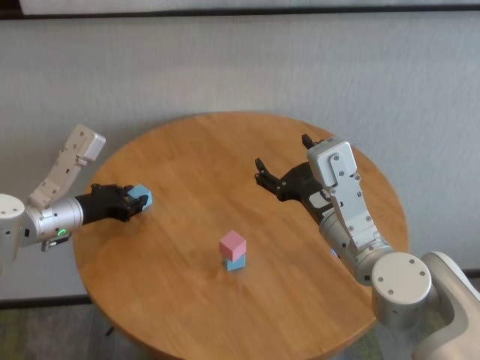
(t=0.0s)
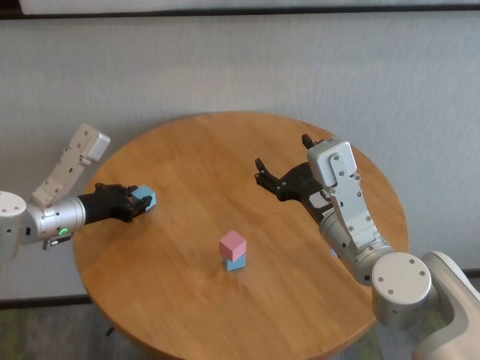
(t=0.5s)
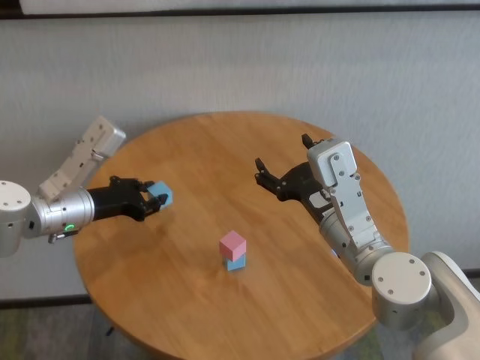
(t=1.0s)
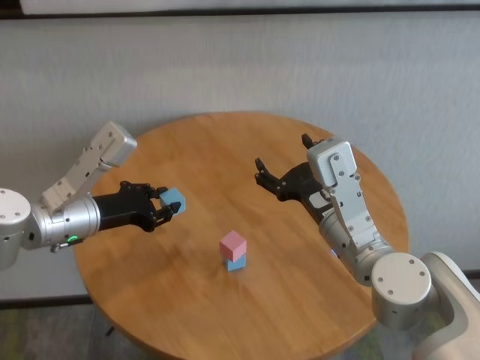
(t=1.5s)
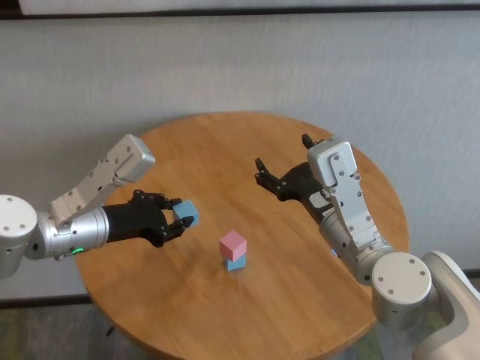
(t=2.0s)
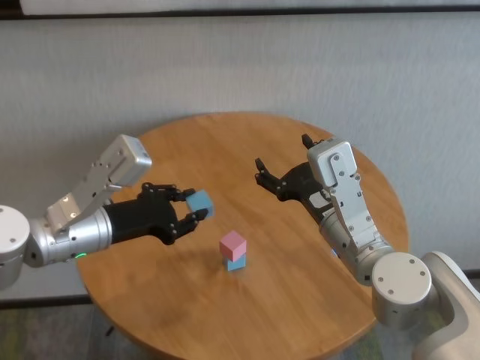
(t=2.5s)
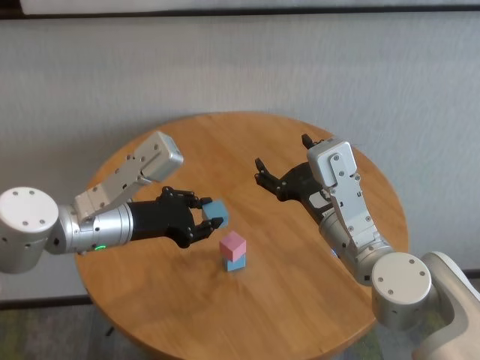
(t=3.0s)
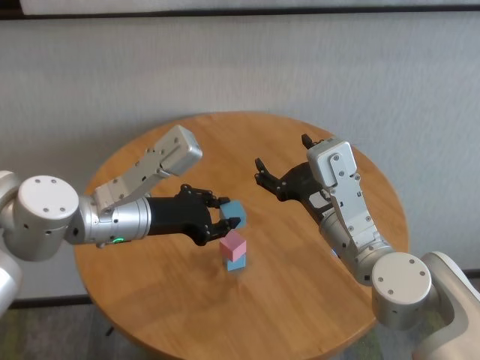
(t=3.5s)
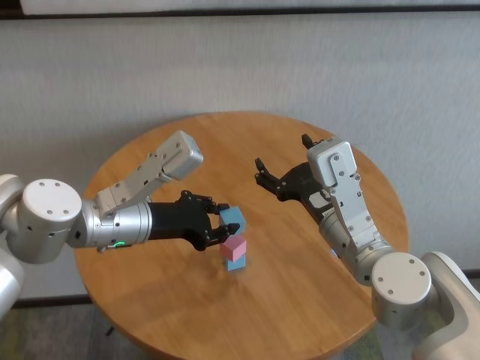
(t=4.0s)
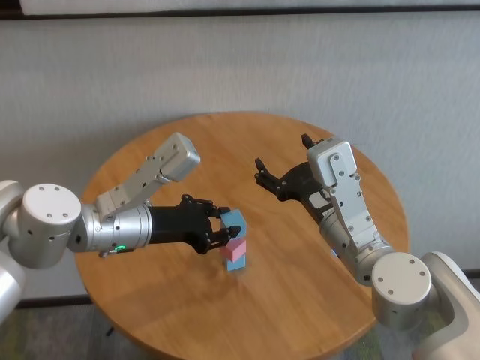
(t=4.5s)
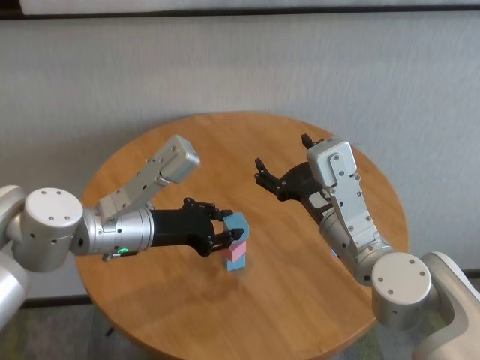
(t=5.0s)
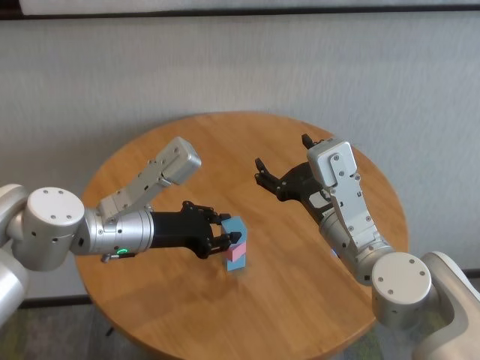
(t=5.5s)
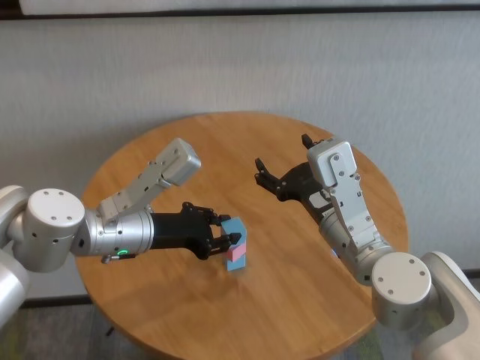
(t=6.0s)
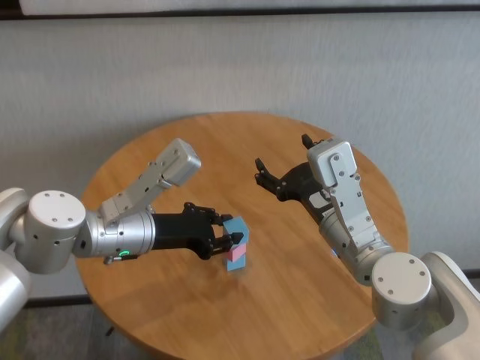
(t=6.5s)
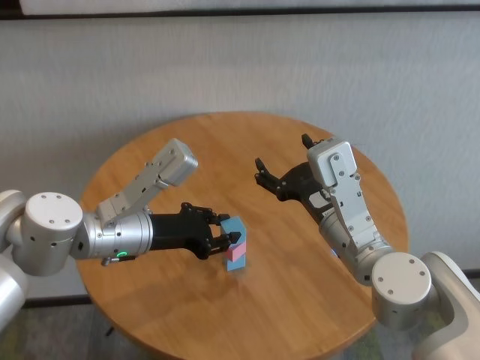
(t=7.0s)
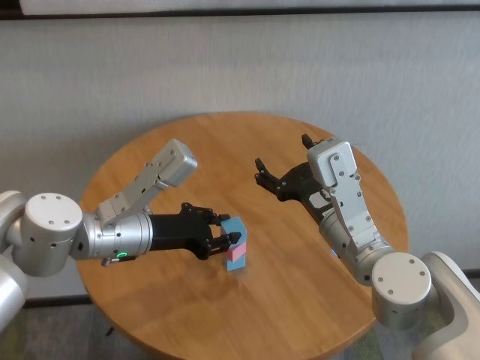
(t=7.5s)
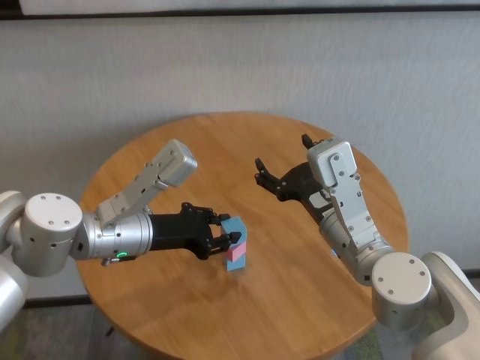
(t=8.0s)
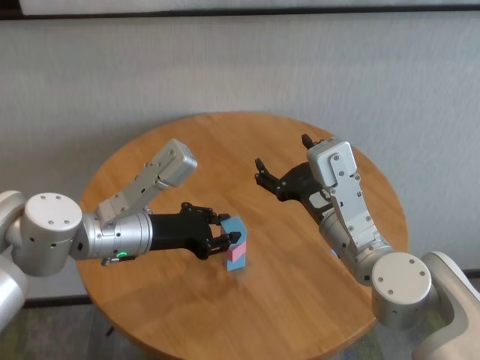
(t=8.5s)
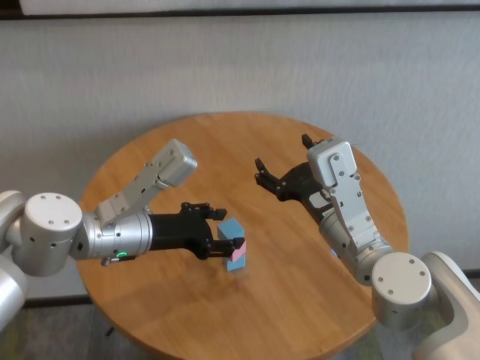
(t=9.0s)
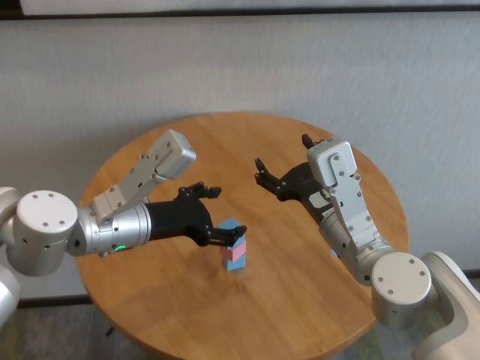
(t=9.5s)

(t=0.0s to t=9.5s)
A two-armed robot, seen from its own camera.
Task of the whole recording: stack building blocks on the table.
Step, t=0.5s - t=9.0s: Place the blue building block on the pink building blocks with left gripper.

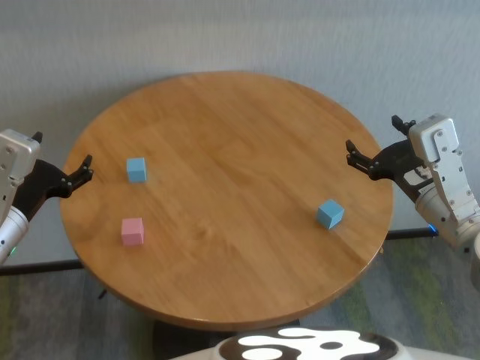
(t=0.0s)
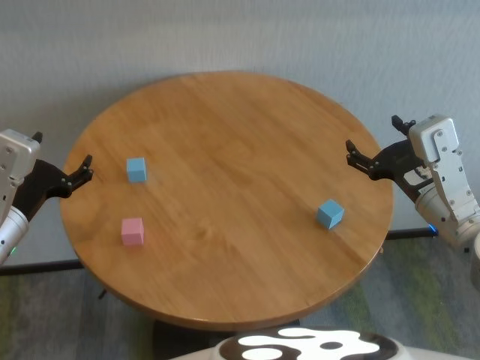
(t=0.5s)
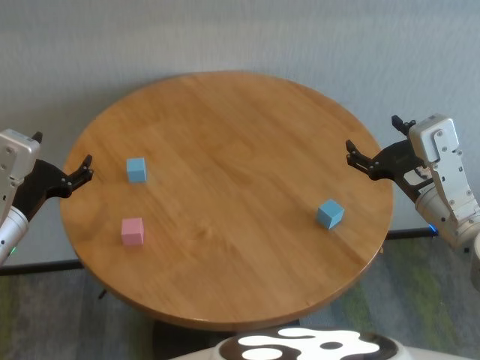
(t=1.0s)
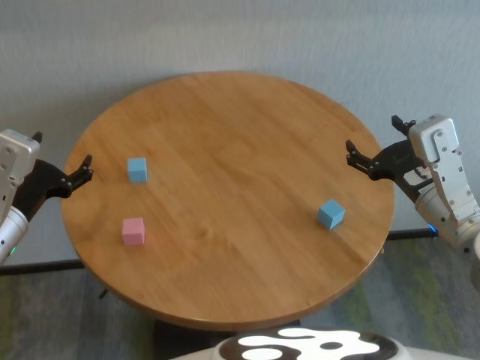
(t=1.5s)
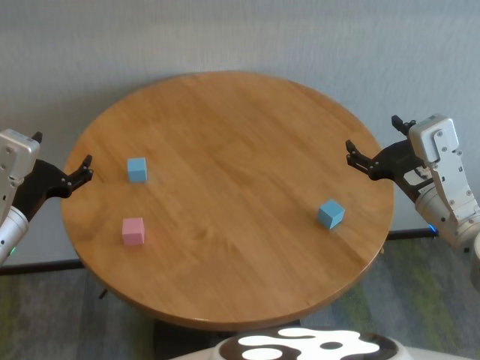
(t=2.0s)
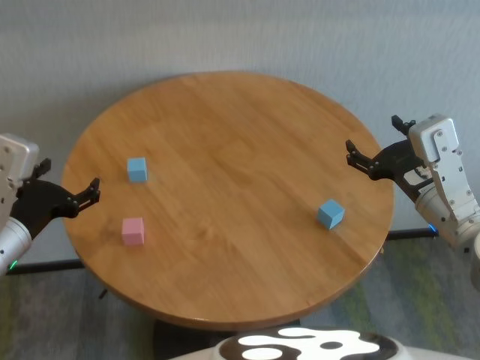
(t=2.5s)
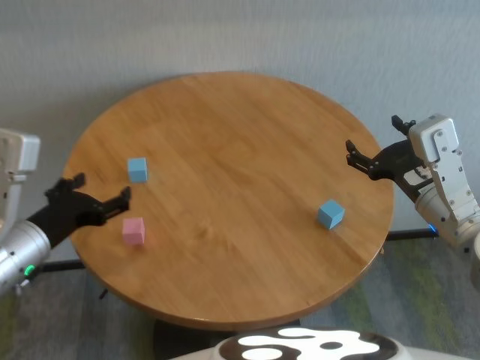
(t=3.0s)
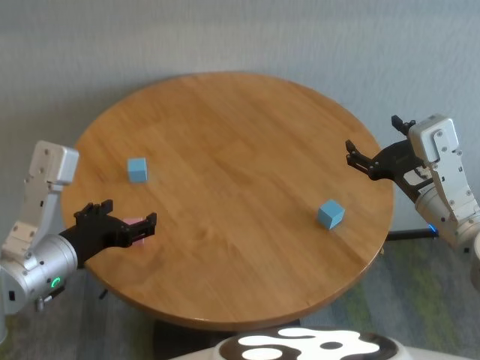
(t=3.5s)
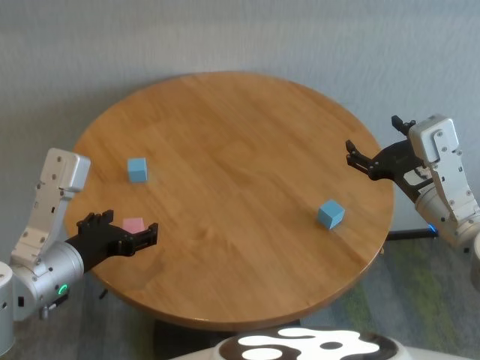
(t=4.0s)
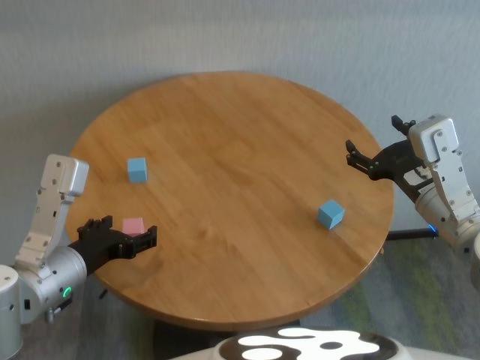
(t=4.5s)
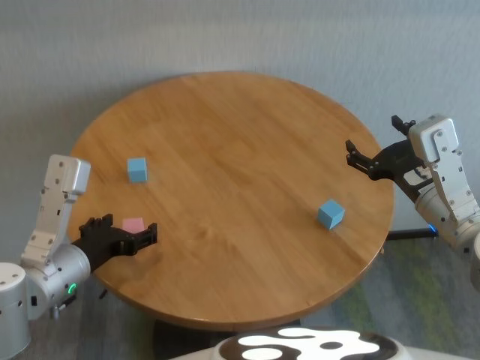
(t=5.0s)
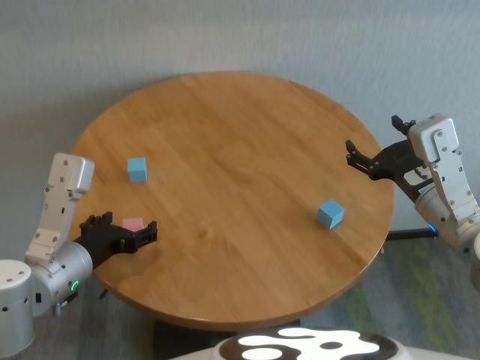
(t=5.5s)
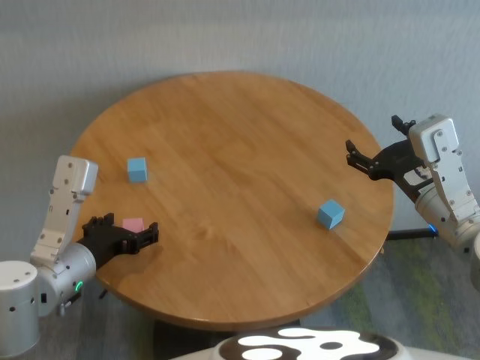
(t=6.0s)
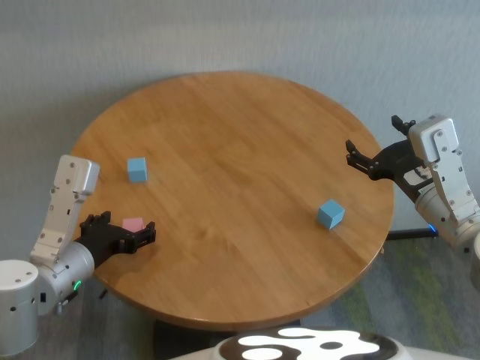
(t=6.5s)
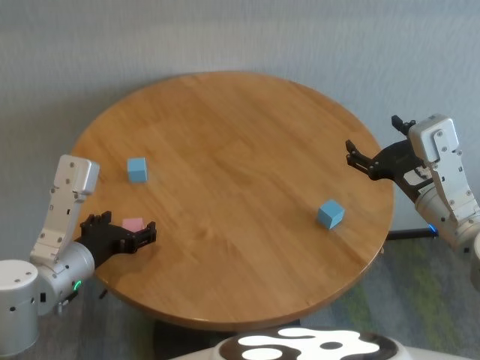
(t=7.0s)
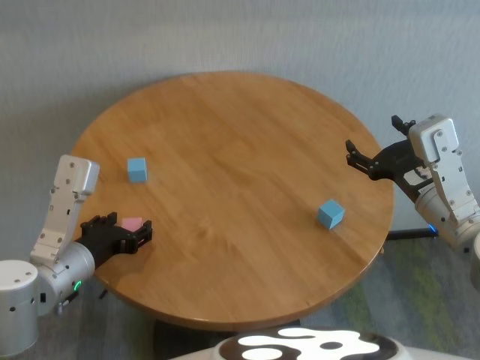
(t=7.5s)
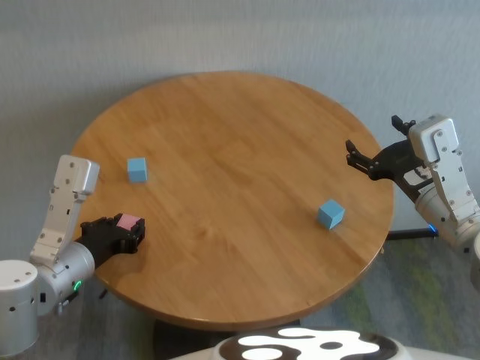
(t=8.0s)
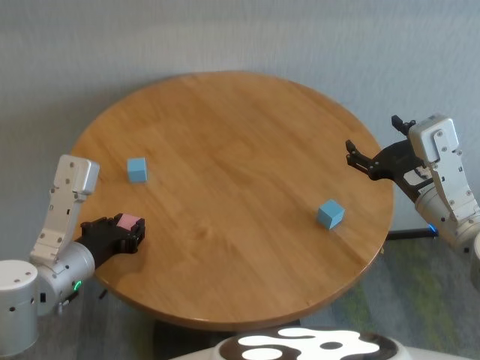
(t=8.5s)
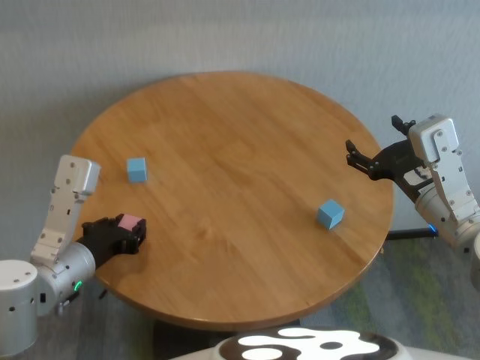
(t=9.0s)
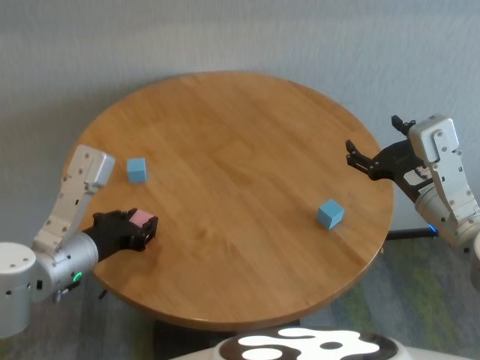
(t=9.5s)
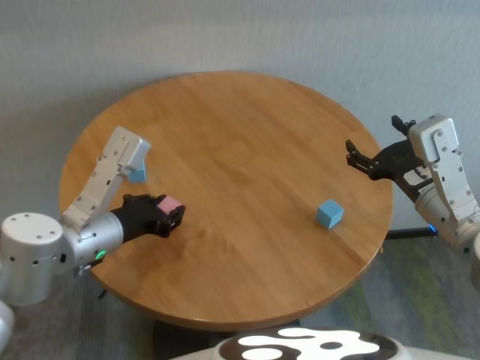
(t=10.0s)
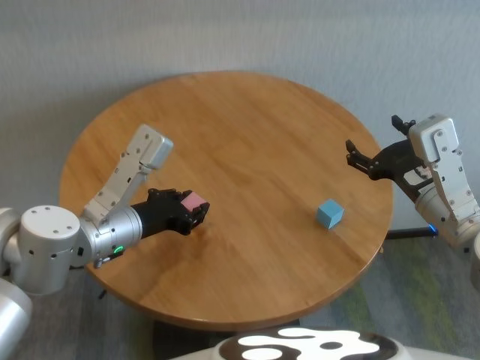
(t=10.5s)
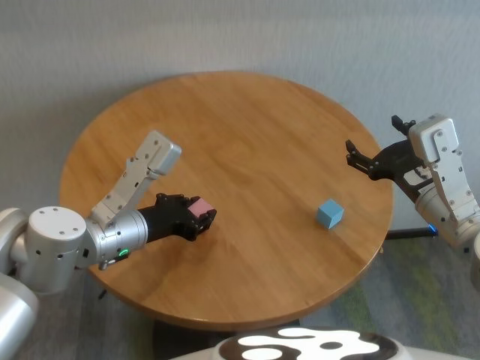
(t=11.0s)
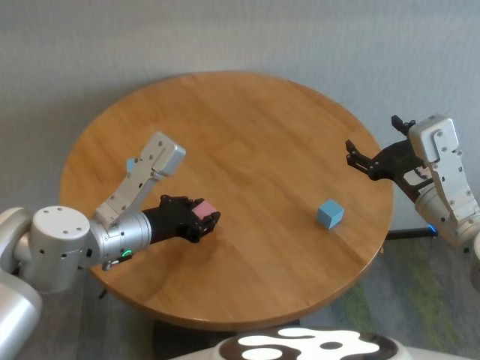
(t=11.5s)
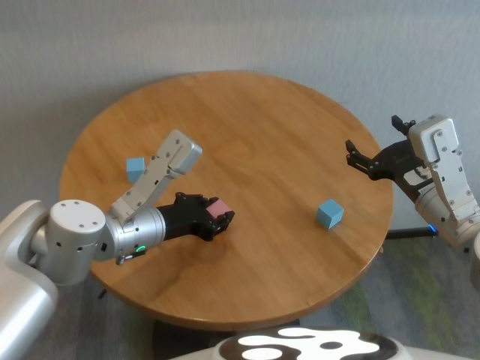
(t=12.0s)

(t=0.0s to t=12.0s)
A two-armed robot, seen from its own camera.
Task of the whole recording: stack building blocks on the table.
Step, t=0.0s - t=7.5s: Grasp the pink building block with left gripper.

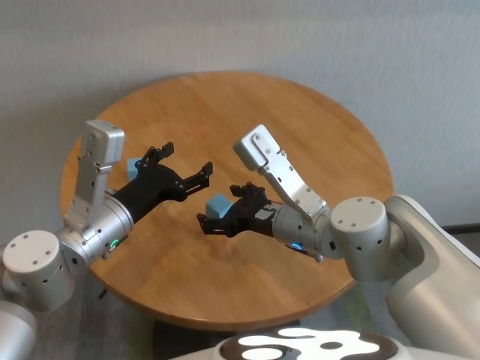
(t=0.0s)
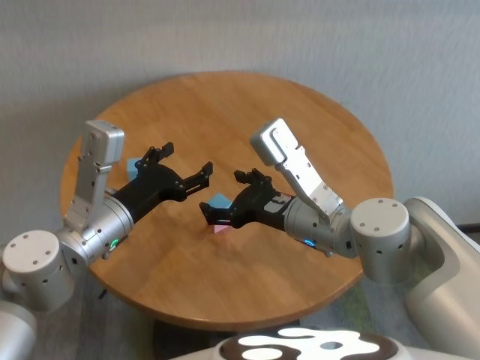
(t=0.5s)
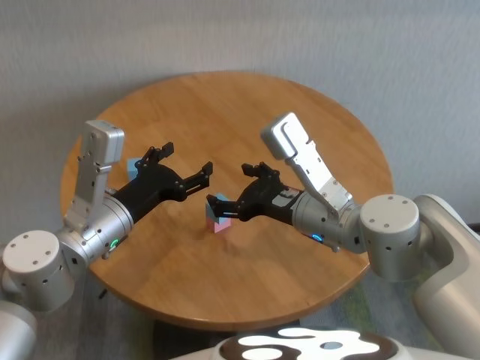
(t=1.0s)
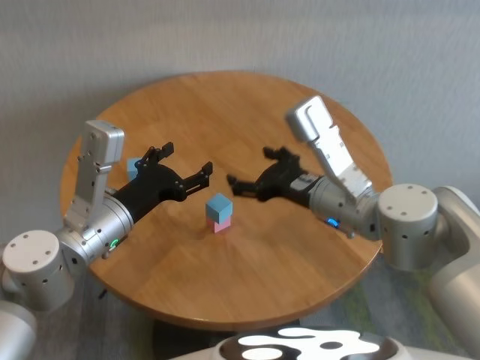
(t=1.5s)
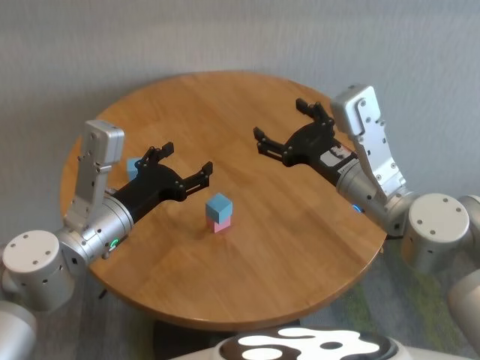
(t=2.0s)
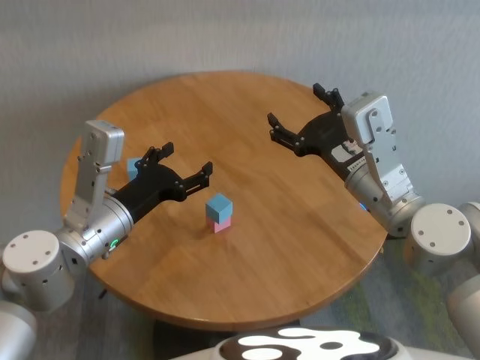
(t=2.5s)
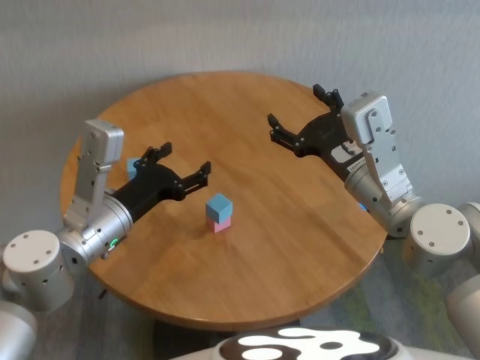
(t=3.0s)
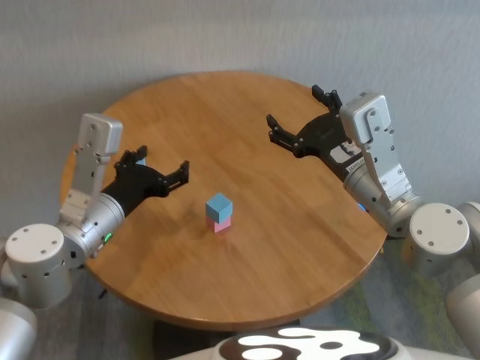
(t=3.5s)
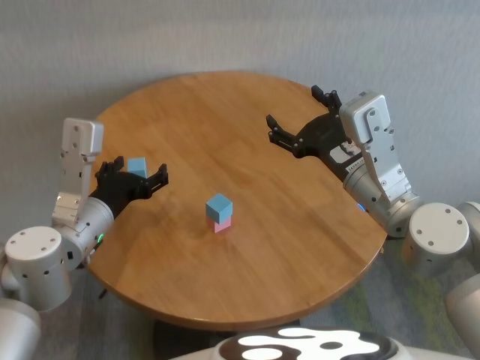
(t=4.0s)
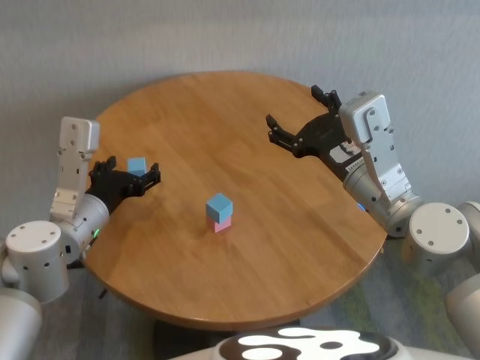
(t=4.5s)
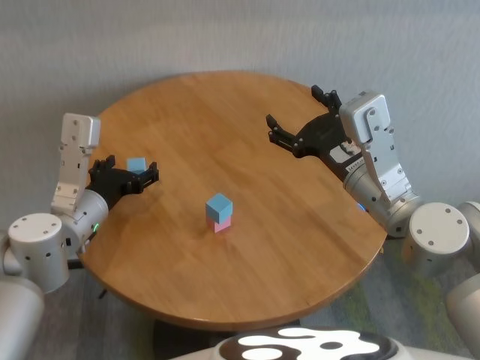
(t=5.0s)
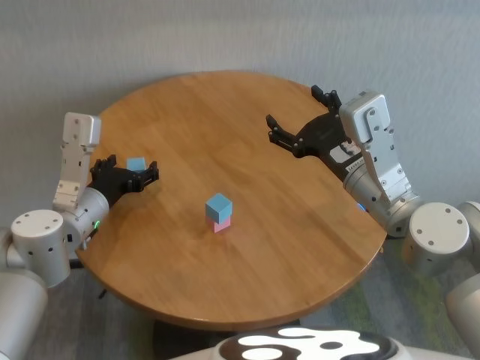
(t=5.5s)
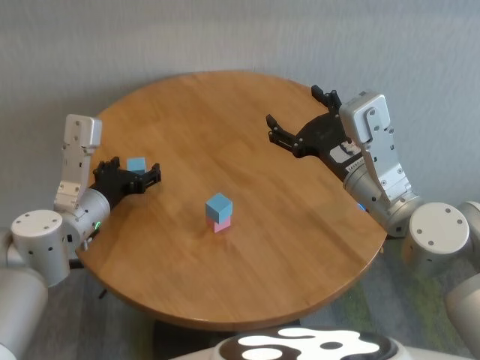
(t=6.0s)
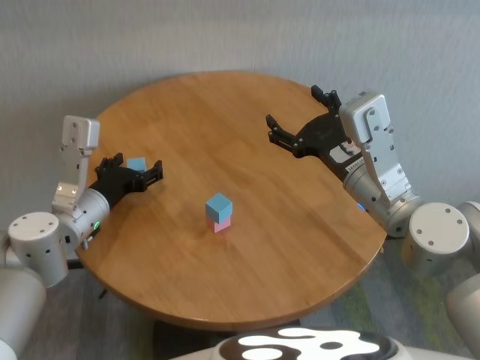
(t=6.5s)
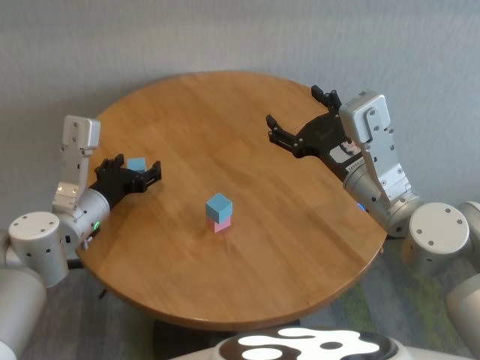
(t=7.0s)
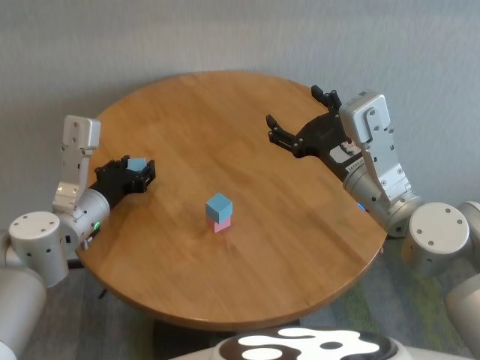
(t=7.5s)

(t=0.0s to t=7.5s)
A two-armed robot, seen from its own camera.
Task of the whole recording: stack building blocks on the table.
Step, t=0.0s - t=7.5s: Grasp the blue building block with left gripper.
